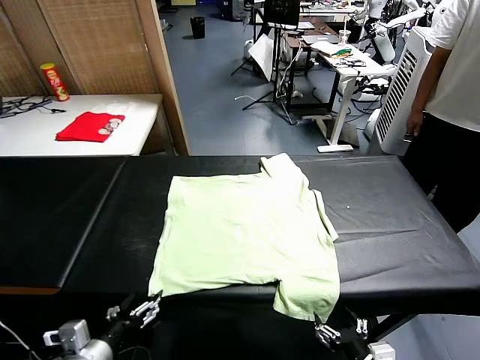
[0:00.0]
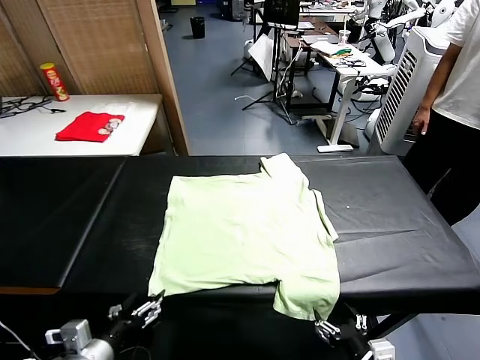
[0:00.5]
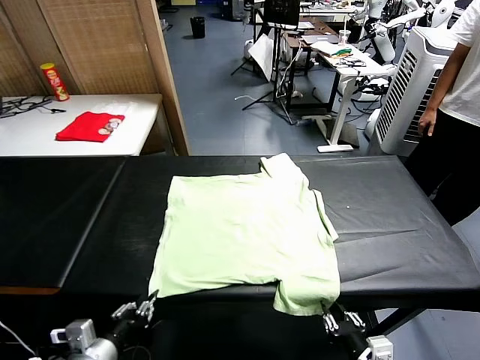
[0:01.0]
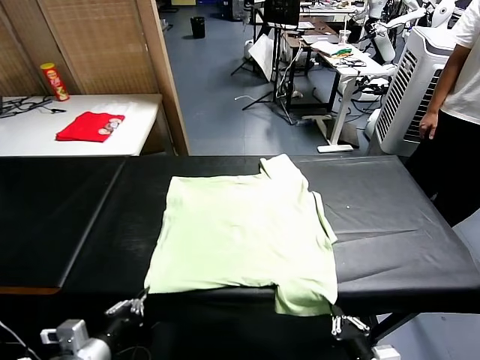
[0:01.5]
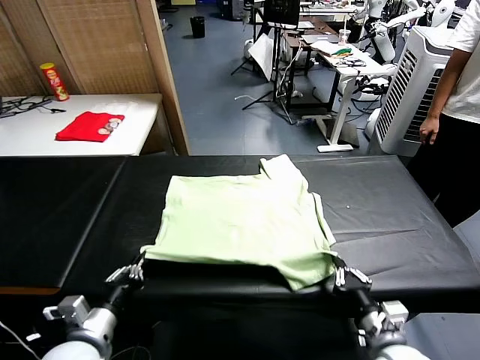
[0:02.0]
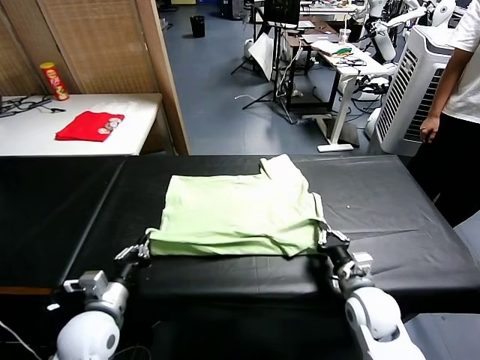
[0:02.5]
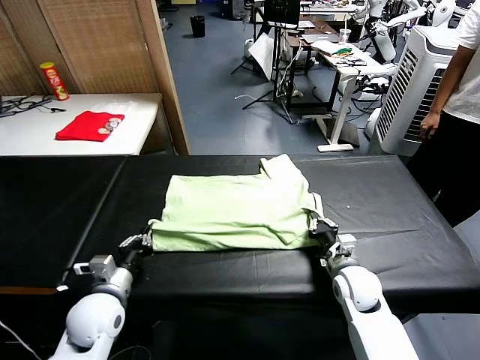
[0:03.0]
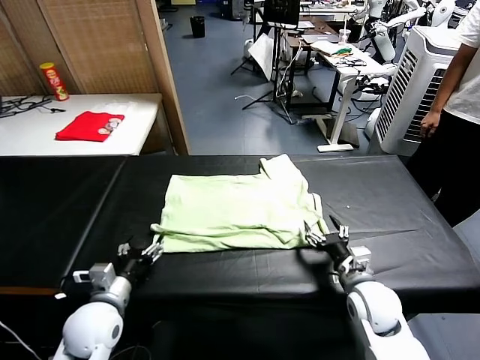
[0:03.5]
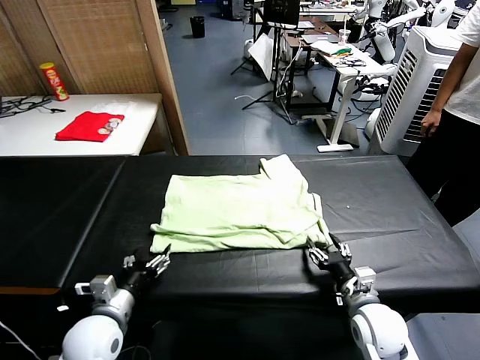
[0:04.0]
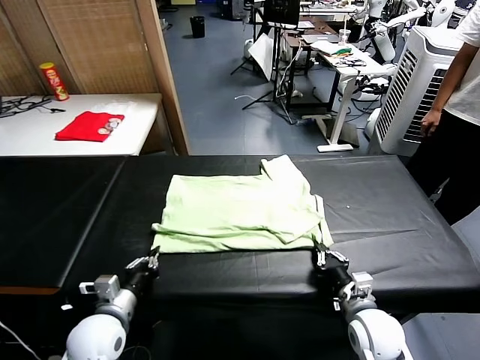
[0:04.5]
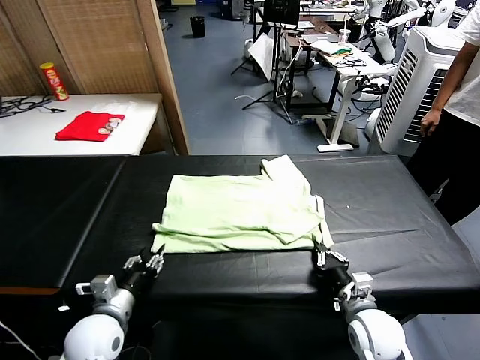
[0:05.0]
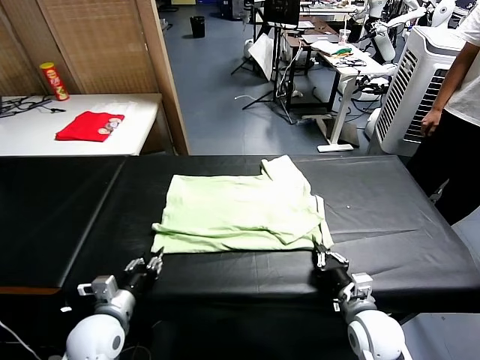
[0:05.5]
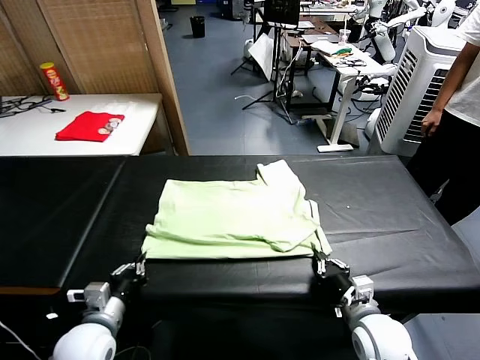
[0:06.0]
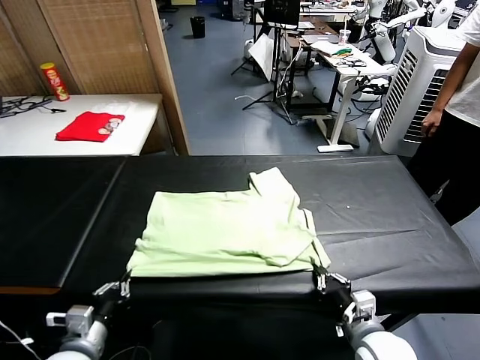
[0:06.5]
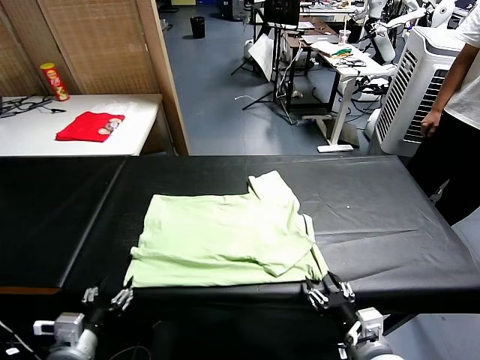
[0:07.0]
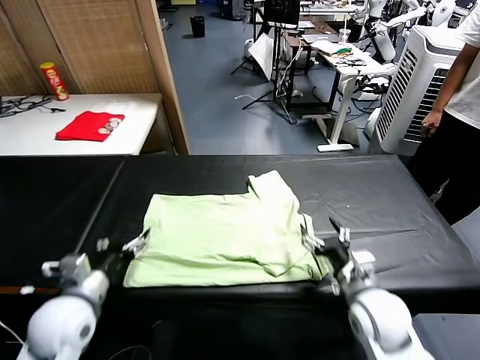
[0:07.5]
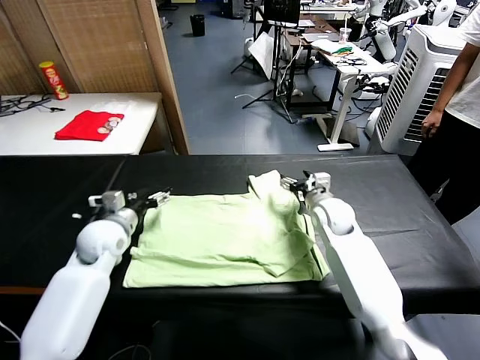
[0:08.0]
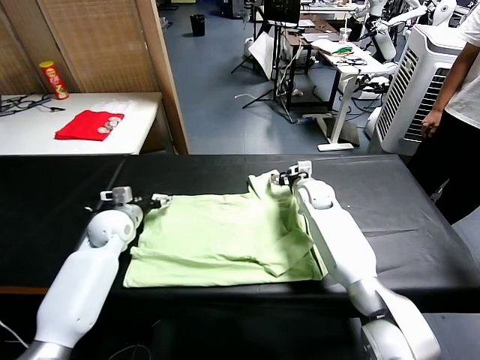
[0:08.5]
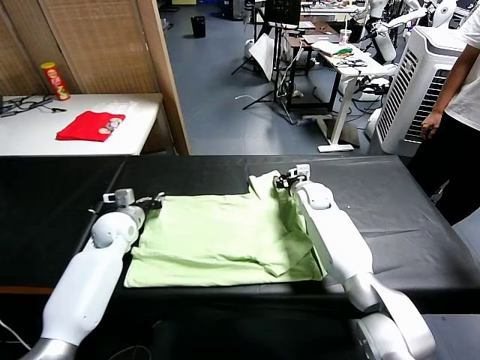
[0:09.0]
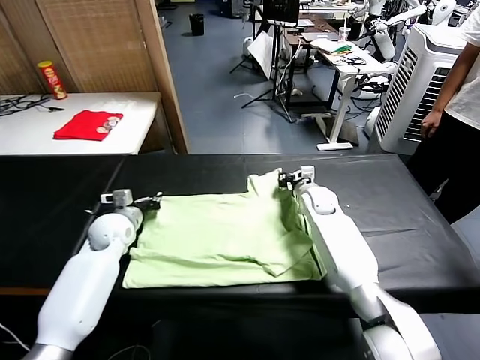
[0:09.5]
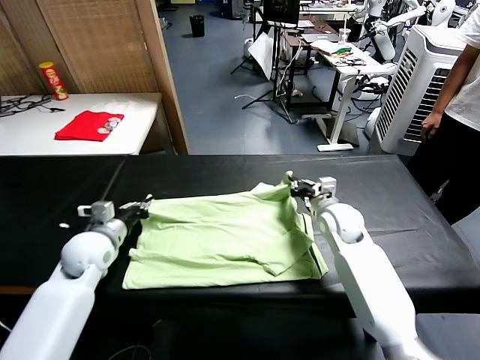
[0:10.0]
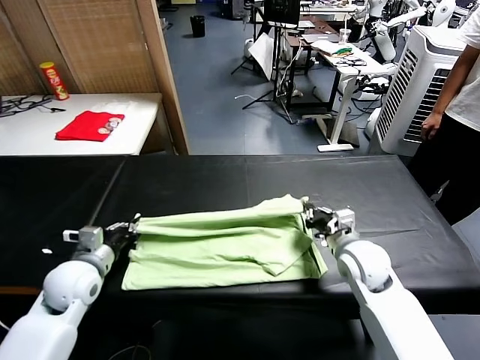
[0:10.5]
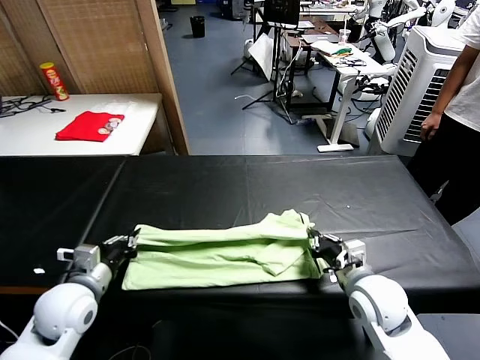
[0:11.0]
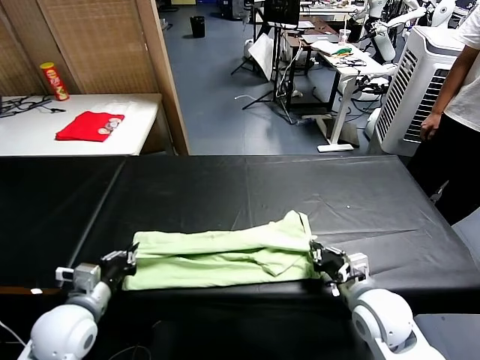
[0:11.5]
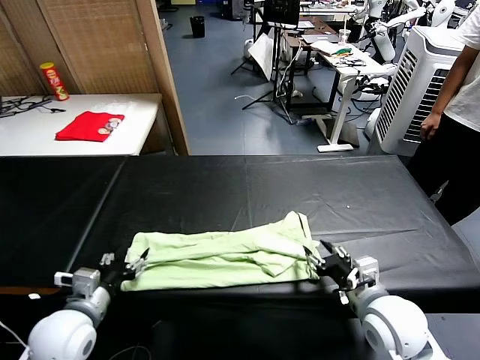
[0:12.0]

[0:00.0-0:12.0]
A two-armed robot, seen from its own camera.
Task of the whole recording: fold and organize the clothes.
Step, 0:00.0 to 0:01.0: use both grippers simultaneously to clamp the lower edge of the clothing fabric.
Step, 0:01.5 to 0:03.0: use both grippers to drag the lower edge of the fabric forward and fold it over the upper edge.
Step, 0:03.5 to 0:07.0: Drag the clothes downward with both gripper.
Step, 0:07.5 to 0:09.0: use both grippers simultaneously to clamp the upper edge of the clothing fabric.
Step, 0:09.5 to 0:12.0: use both grippers to drag the upper edge of the fabric backward and fold it over the lower edge.
0:02.0 to 0:04.0: The right gripper moves roughly 10 cm forward and comes back, and opens up, while the left gripper opens its fingers.
0:04.0 to 0:06.0: The left gripper closes up. Meanwhile the right gripper closes.
0:06.0 to 0:08.0: The two grippers go roughly 25 cm forward. The right gripper opens; the left gripper opens.
0:08.0 to 0:10.0: The left gripper travels backward by approximately 5 cm, and closes its fingers. The right gripper heads backward, covering some 10 cm, and closes up.
0:10.0 to 0:12.0: Both grippers move backward, approximately 15 cm. The right gripper opens its fingers; the left gripper opens up.

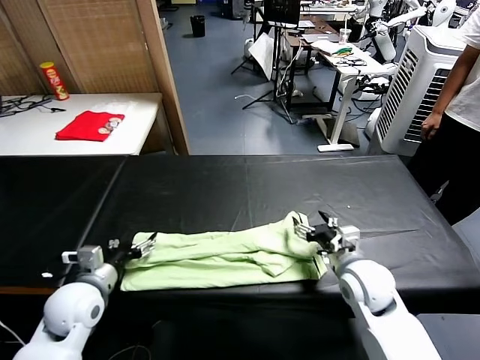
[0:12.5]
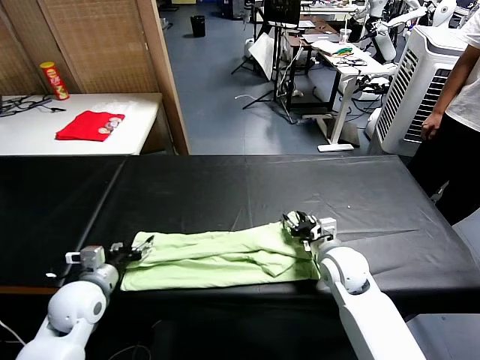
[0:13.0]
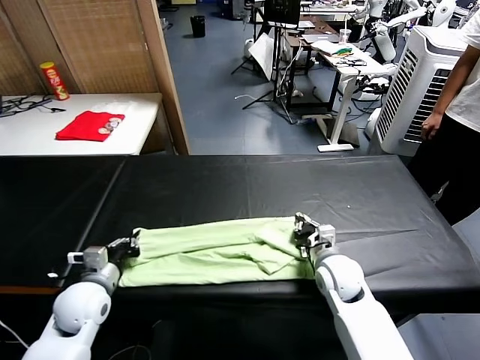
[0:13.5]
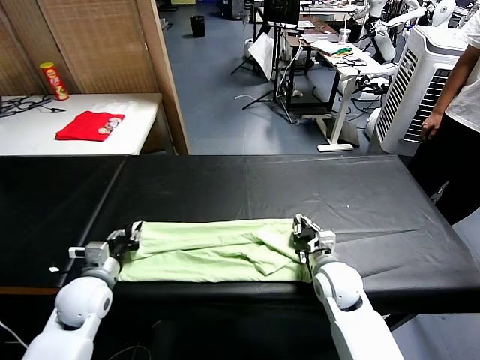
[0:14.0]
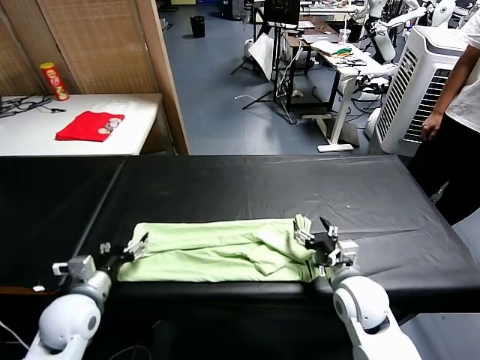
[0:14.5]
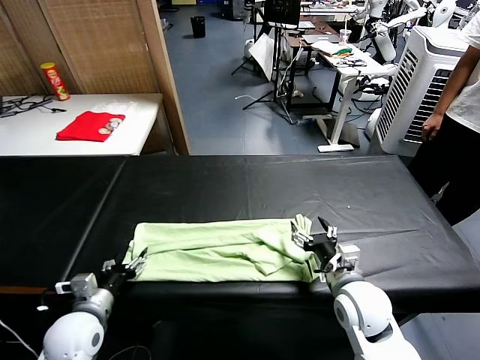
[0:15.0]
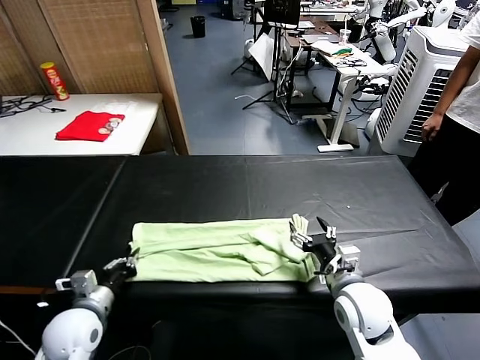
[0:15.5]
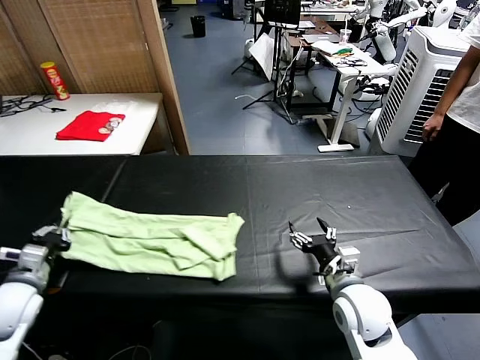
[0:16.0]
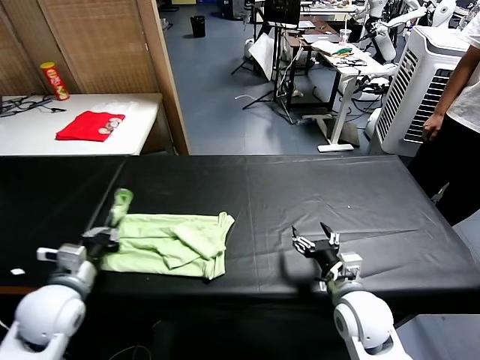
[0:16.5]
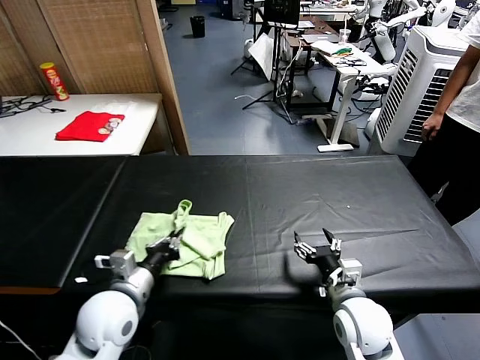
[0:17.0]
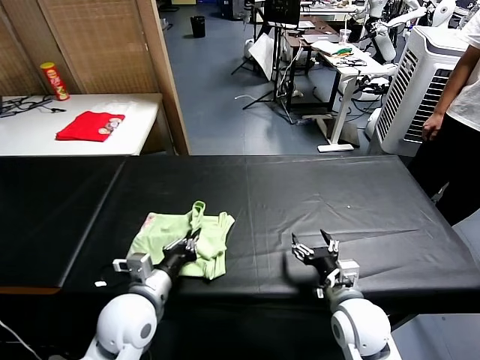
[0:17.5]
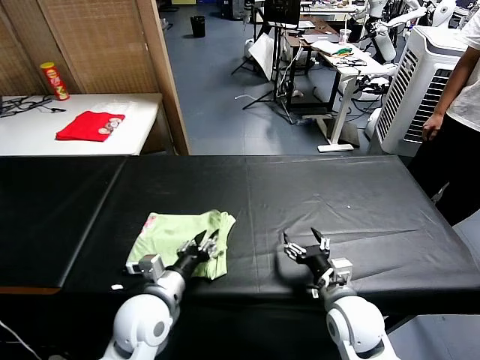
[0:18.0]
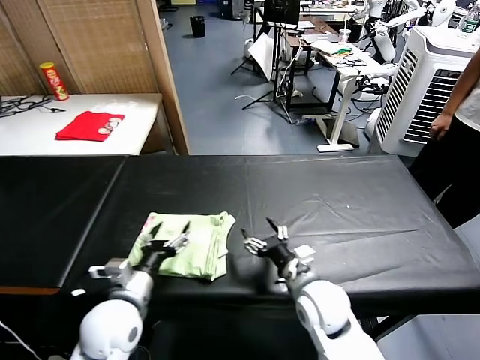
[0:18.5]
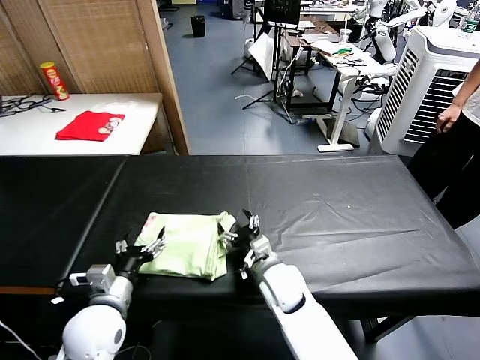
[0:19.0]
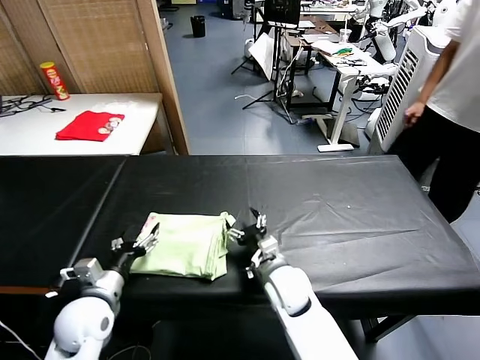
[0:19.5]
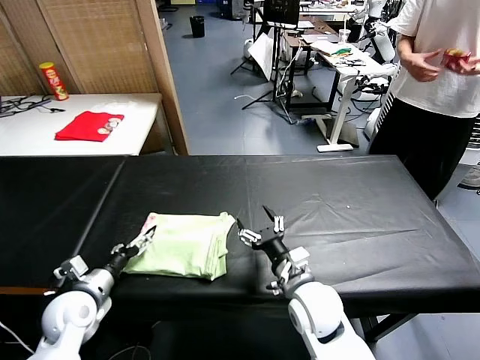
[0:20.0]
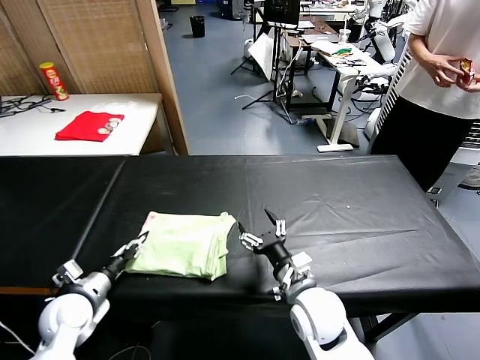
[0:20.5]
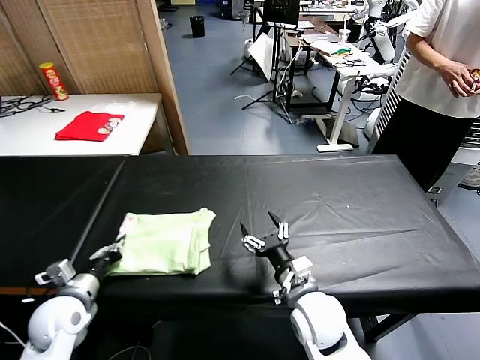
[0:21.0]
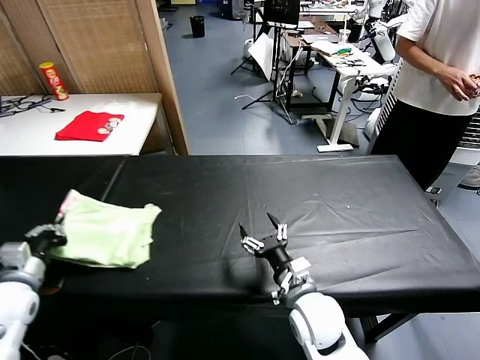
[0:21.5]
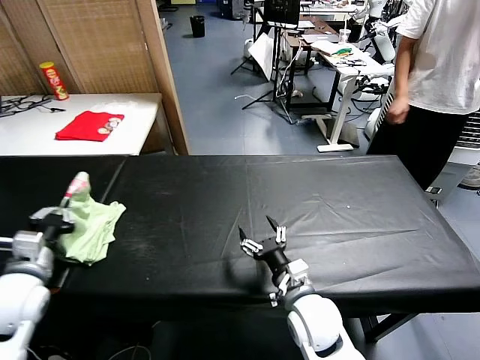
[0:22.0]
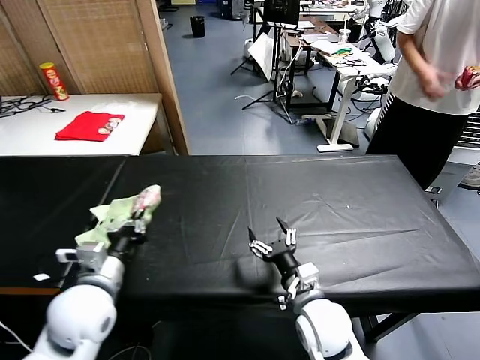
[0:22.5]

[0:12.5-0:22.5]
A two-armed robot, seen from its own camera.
Task of the whole recording: fold and organize the clothes.
Step, 0:12.5 to 0:15.0: use the left gripper to clamp the left edge of the fabric.
Step, 0:15.5 to 0:18.0: use the left gripper to drag the left edge of the fabric to the left and folds it over the right edge.
0:12.5 to 0:14.5: The right gripper closes, then opens again. Meanwhile the left gripper closes, then reopens.
0:14.5 to 0:16.5: The left gripper goes roughly 5 cm upward, travels to the left and back again, roughly 10 cm each way, and closes.
0:16.5 to 0:18.5: The left gripper moves to the right, about 10 cm, and opens its fingers; the right gripper heads to the left, covering some 10 cm.
0:18.5 to 0:20.5: The left gripper travels to the left and downward by some 15 cm, and closes.
0:20.5 to 0:22.5: The left gripper moves upward and to the right, about 15 cm.

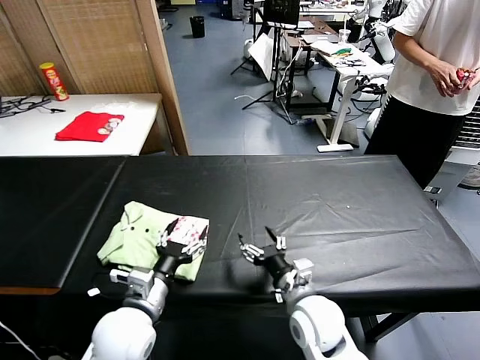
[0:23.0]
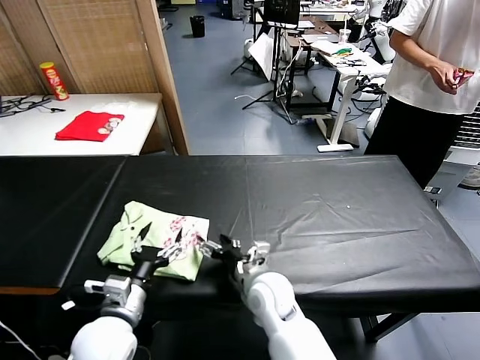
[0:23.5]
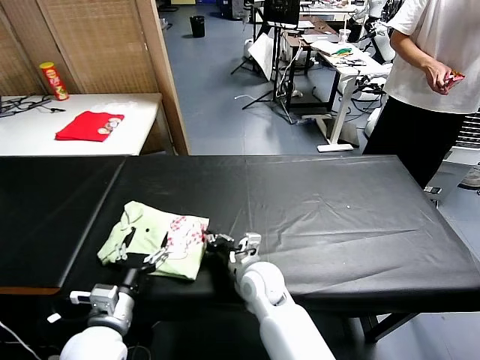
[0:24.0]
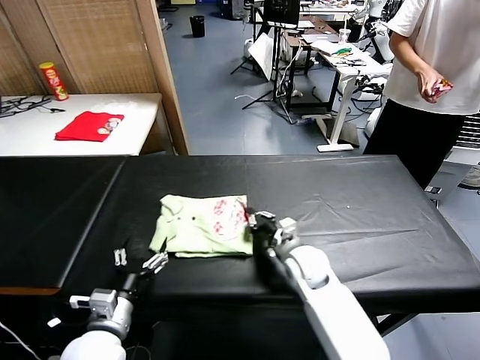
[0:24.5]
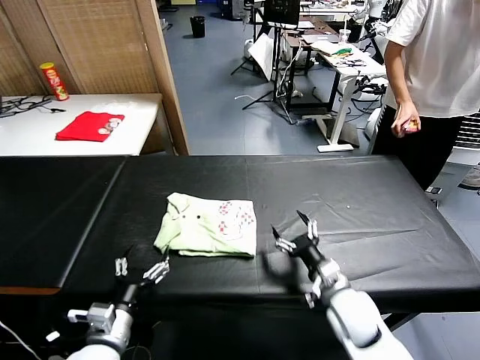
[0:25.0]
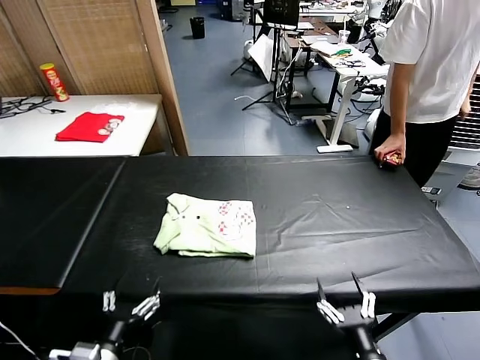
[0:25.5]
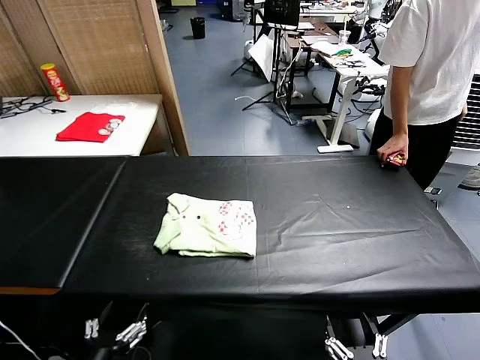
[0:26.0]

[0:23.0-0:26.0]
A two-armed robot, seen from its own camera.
Task of the whole recording: fold and organize the clothes.
Step, 0:23.0 to 0:24.5: Drag the clothes to the center of the table.
0:23.0 to 0:24.5: The left gripper is displaced to the left by roughly 5 cm. The right gripper heads forward, covering about 15 cm, and closes its fingers.
0:24.5 to 0:26.0: The left gripper moves backward, about 15 cm; the right gripper travels backward by about 35 cm, and opens up.
